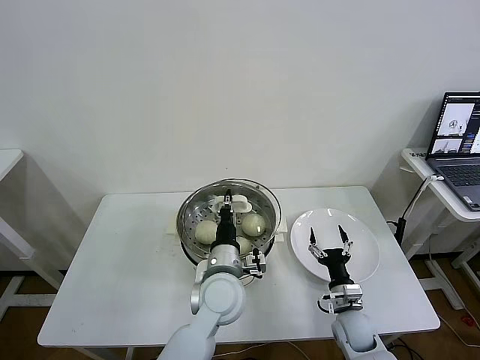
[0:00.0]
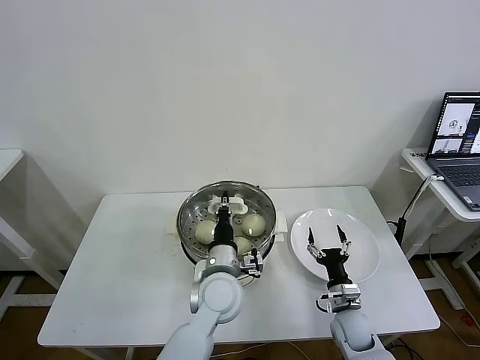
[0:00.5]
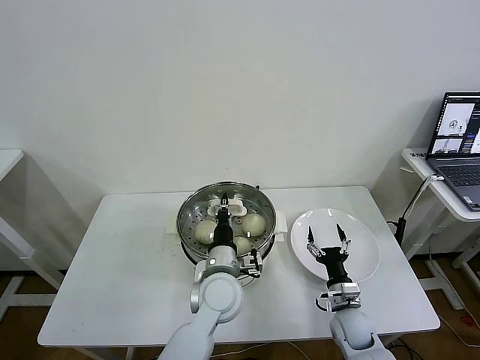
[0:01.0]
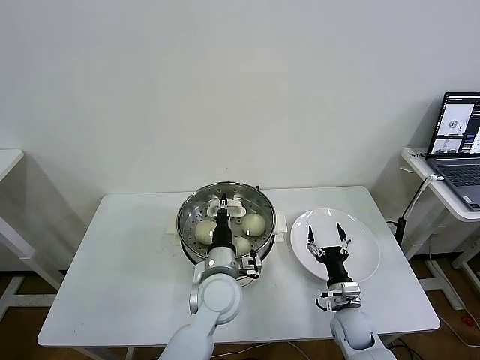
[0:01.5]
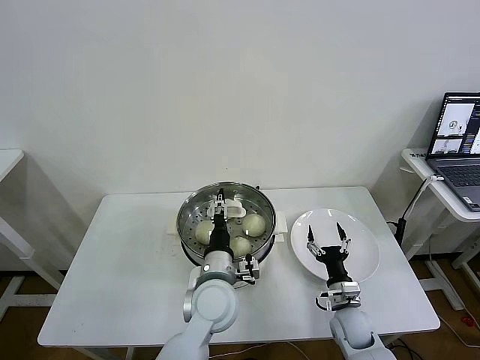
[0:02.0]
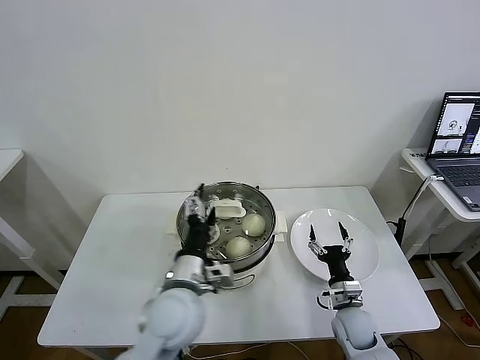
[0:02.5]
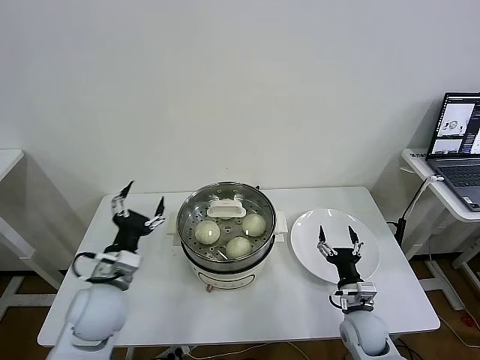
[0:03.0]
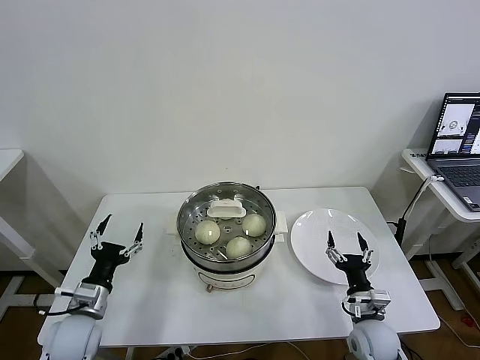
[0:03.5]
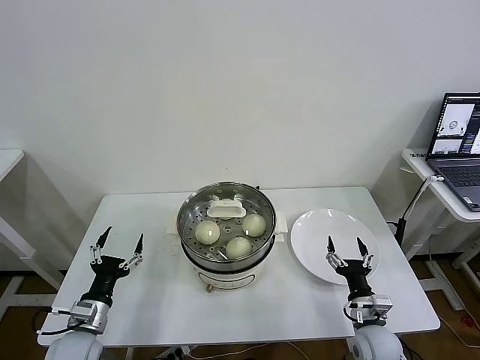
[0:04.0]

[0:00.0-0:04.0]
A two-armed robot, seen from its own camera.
Task of the whole recording: take steamed baozi put them in steamer then cover it.
0:00.0 to 0:02.0: The left gripper opens.
0:02.0 to 0:04.0: The right gripper is displaced backward by some 5 cm, while the left gripper is displaced to the left by some 30 cm, and opens its fingers.

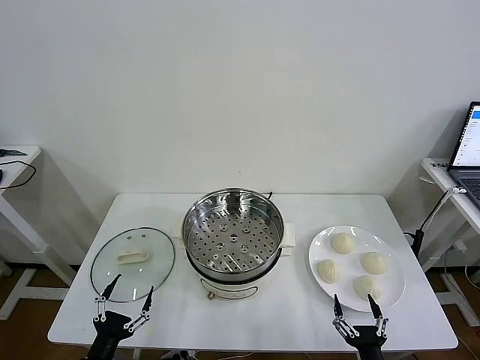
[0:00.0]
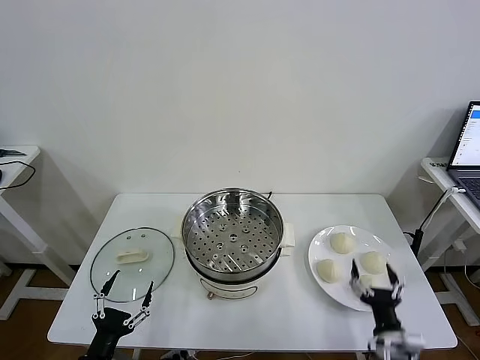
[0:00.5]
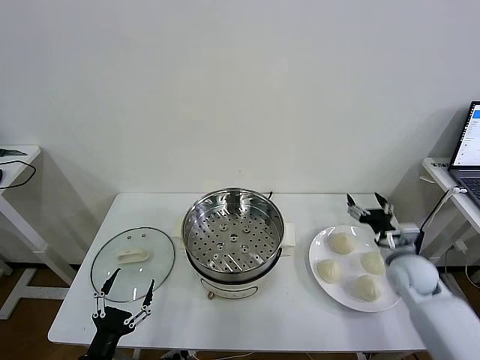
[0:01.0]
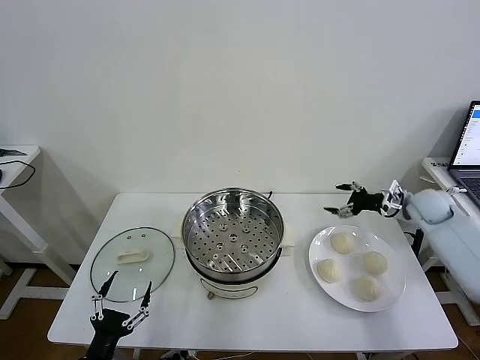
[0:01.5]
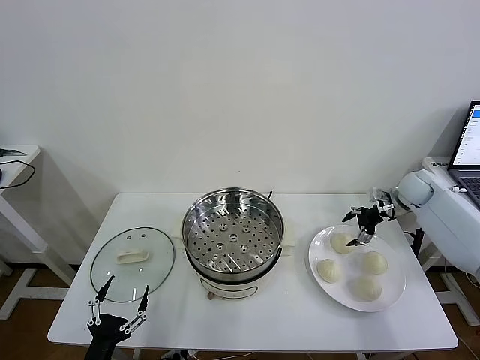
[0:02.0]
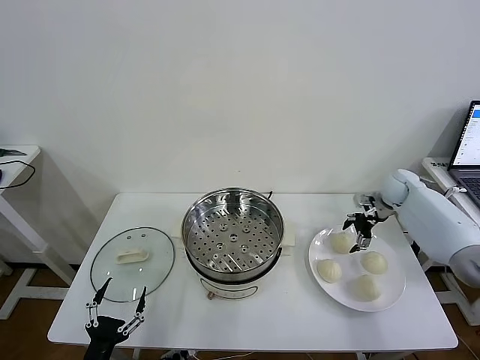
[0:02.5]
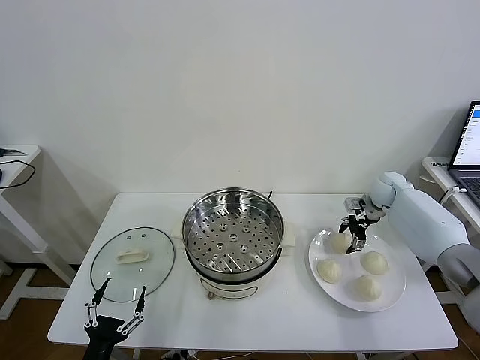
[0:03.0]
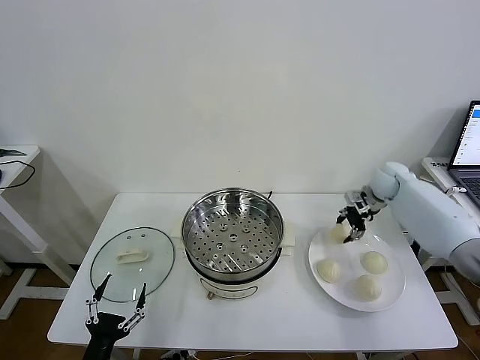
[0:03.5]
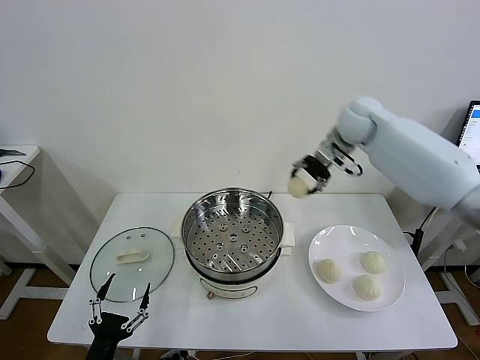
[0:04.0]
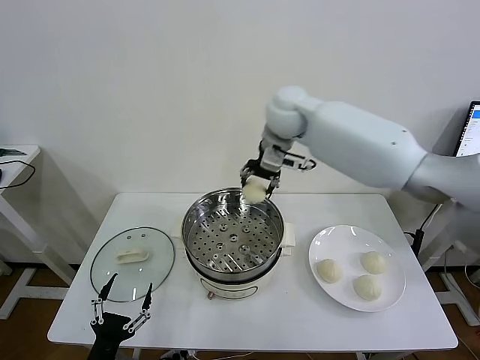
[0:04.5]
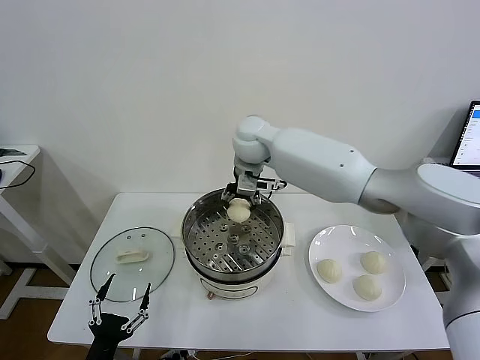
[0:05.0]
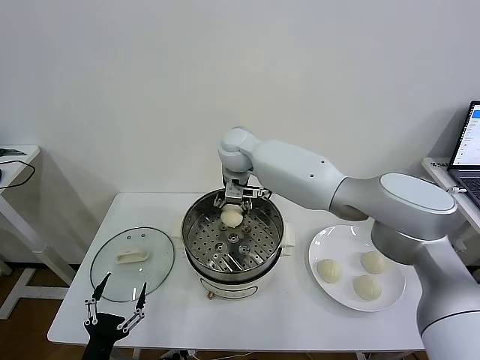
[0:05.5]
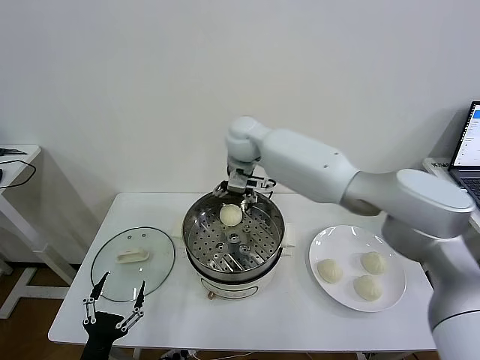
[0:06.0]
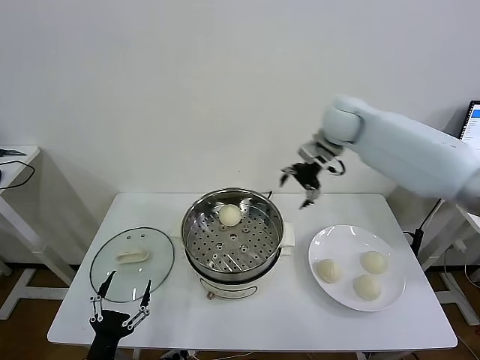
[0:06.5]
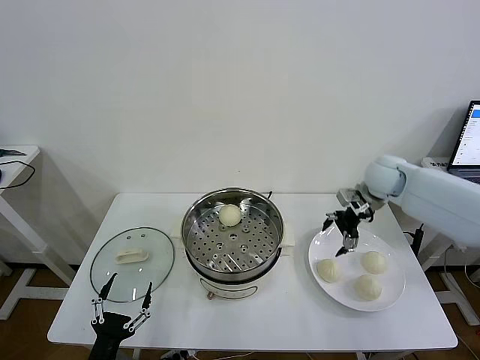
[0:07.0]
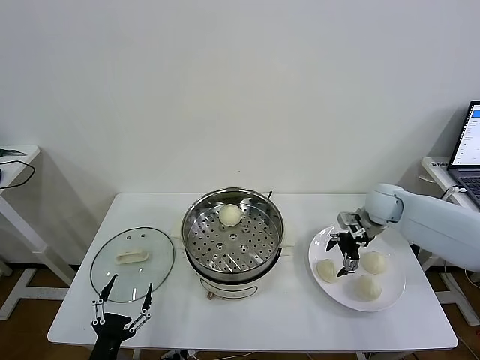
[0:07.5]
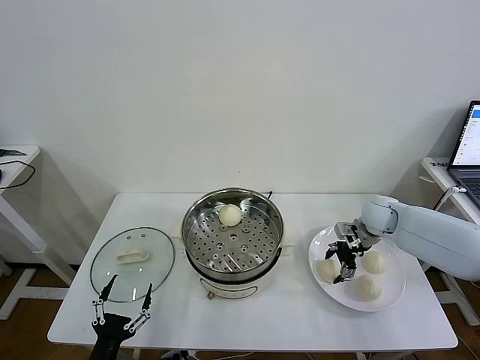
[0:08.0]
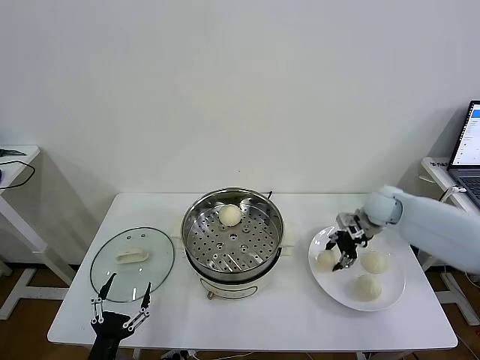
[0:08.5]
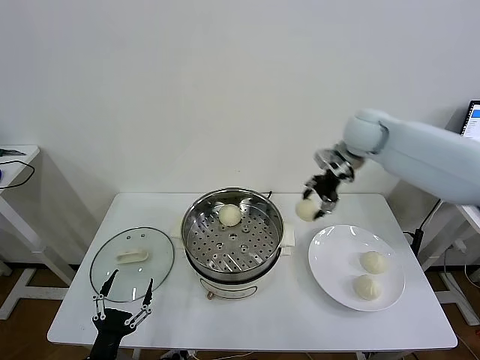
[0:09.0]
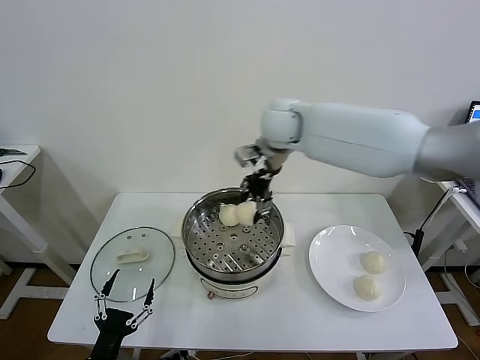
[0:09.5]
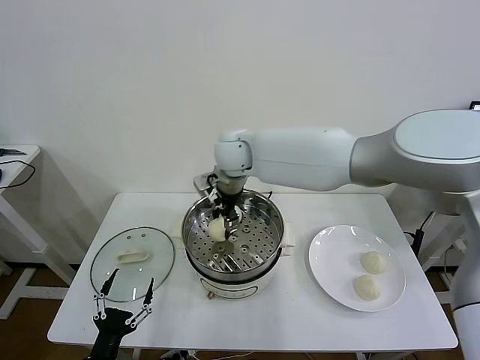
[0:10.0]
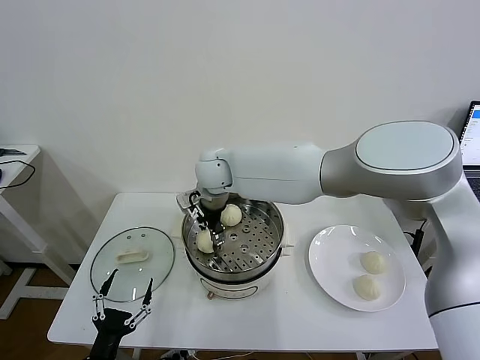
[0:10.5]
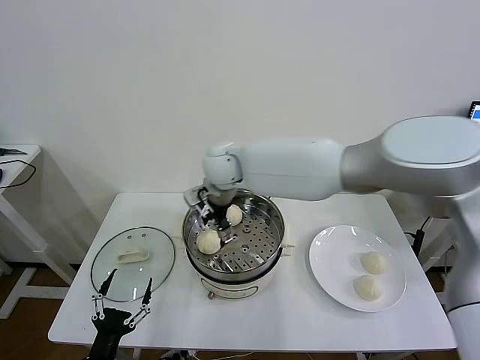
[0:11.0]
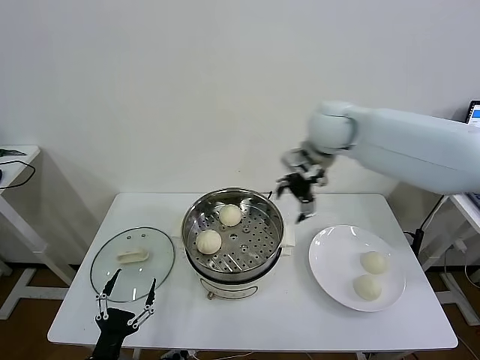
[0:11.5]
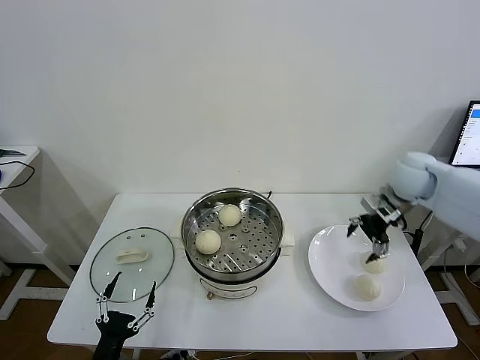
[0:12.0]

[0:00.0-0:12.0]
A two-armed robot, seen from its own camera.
Task of the whole recording: take steamed baozi put them in steamer then cover it.
Step, 0:00.0 to 0:03.0: Grasp the baozi in the plate with right gripper.
Step, 0:03.5 to 0:05.5: Place the baozi on the steamer with right gripper.
Step, 0:06.0 to 0:08.0: Grasp the baozi in the plate with right gripper.
Step, 0:08.5 to 0:10.5: Place the baozi on the steamer with right gripper.
0:02.0 to 0:04.0: The right gripper moves to the left and upward, some 30 cm, and closes.
0:04.0 to 0:06.0: The right gripper travels to the left by about 15 cm, and opens.
0:06.0 to 0:08.0: The right gripper goes approximately 35 cm to the right and downward, and closes.
0:08.0 to 0:10.0: The right gripper goes about 40 cm to the left and upward.
0:10.0 to 0:12.0: The right gripper shifts some 40 cm to the right, and opens its fingers.

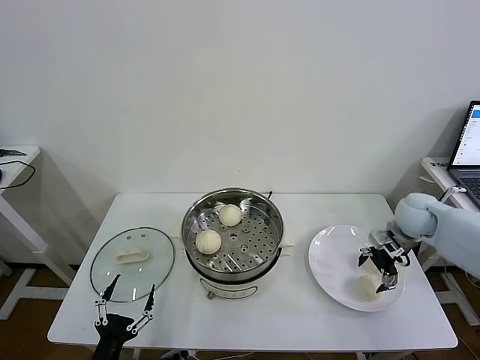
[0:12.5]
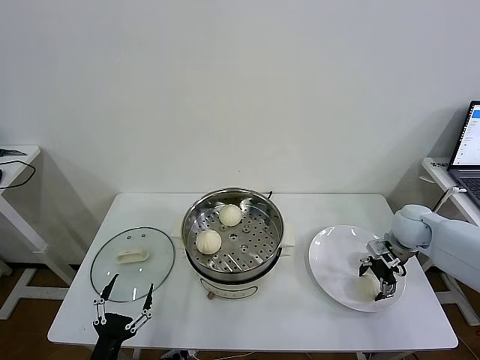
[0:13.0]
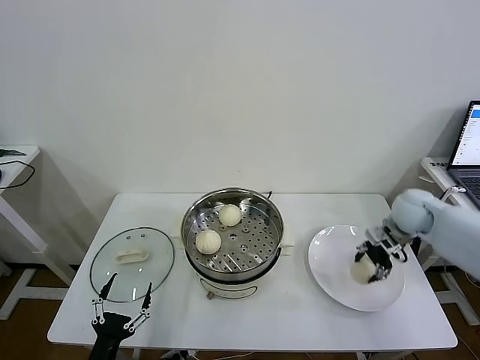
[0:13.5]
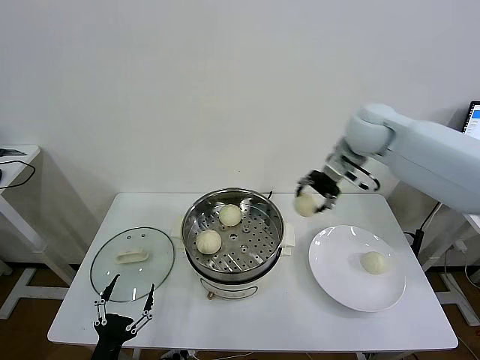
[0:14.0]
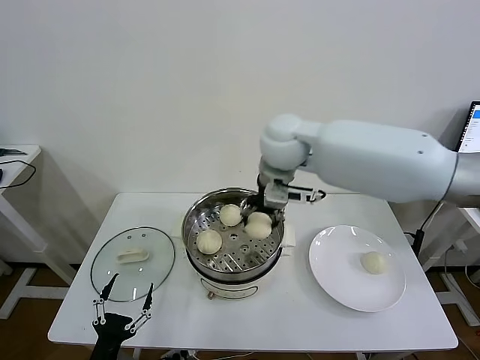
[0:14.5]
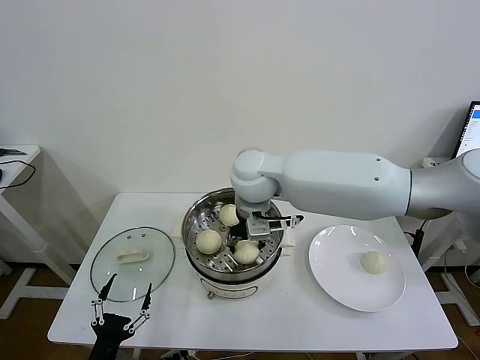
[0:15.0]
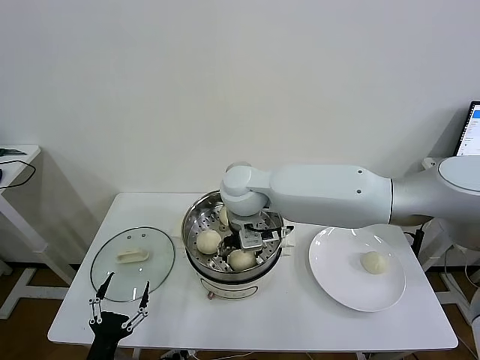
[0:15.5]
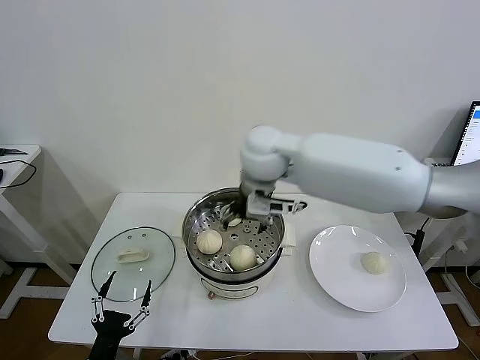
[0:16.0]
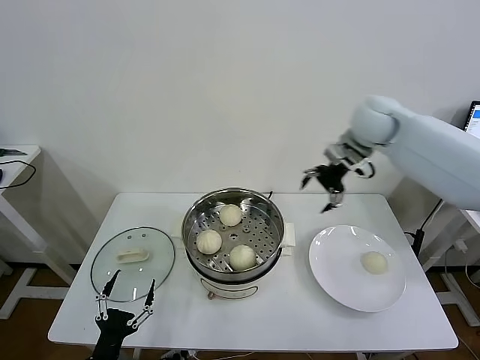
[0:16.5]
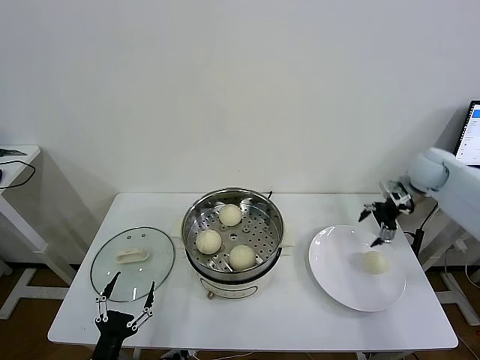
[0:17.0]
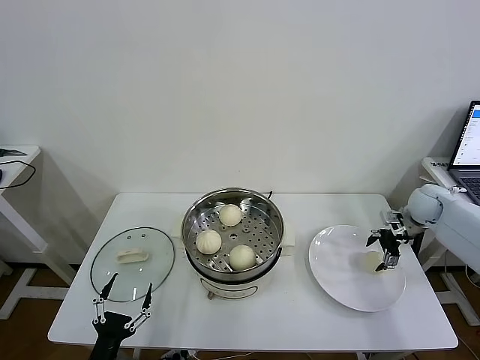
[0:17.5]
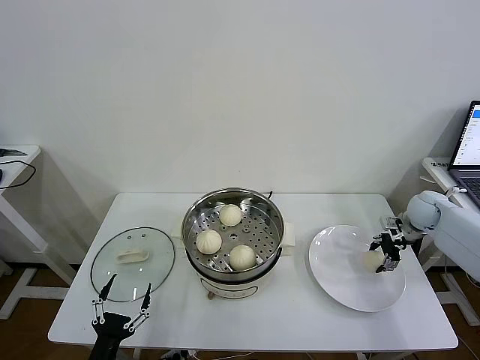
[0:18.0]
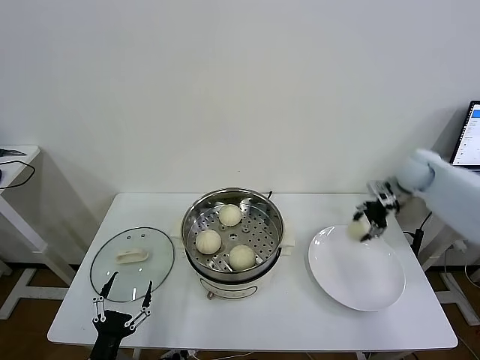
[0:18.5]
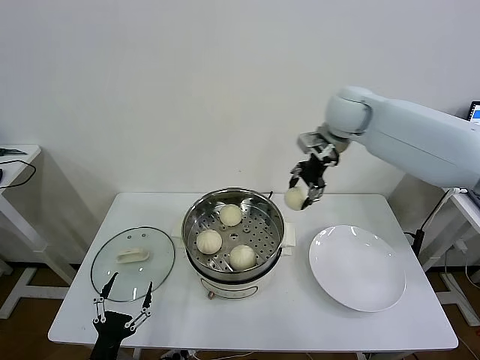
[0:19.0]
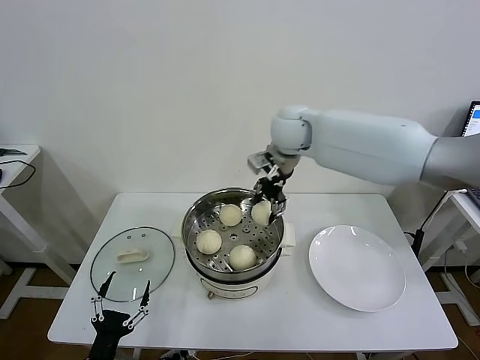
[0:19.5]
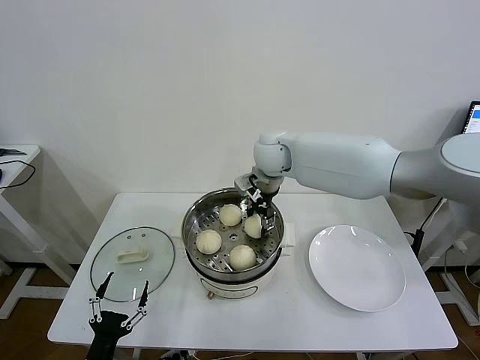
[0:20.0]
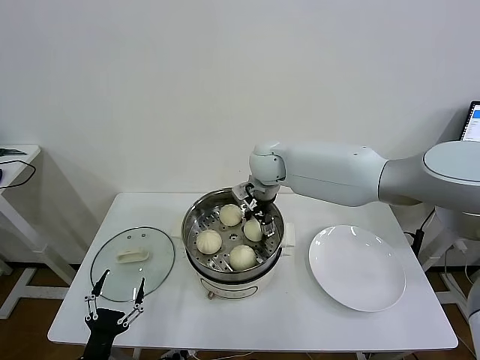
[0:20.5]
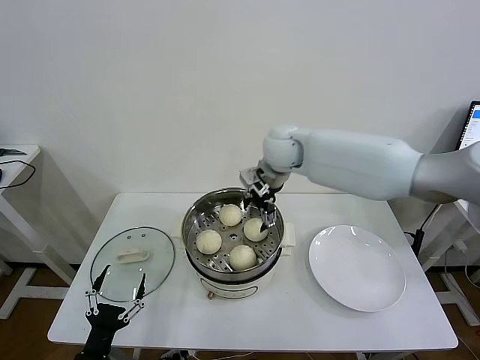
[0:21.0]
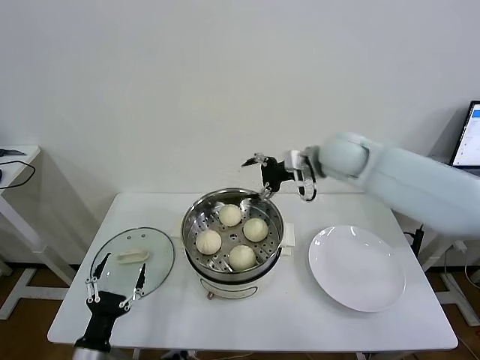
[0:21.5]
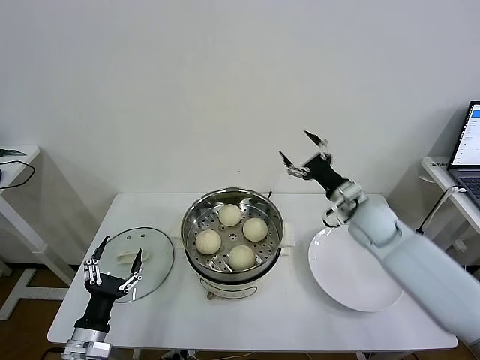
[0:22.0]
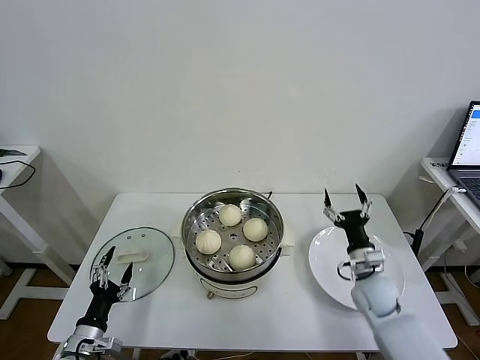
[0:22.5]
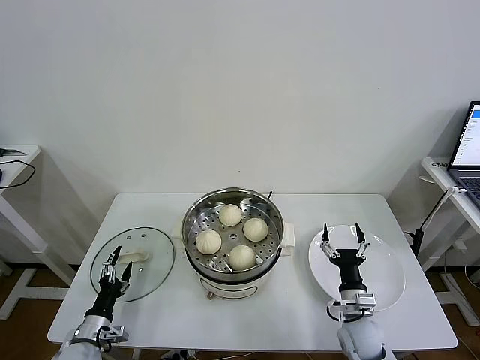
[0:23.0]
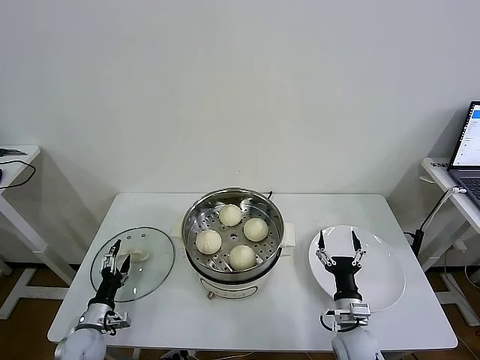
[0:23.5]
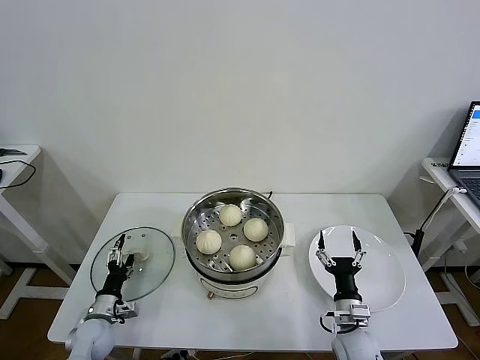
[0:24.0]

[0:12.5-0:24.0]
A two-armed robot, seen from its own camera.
Task of the whole recording: take steamed baozi put them in steamer then cover it.
Step, 0:13.5 to 0:15.5: Place the baozi on the steamer with right gripper.
Step, 0:16.0 to 0:18.0: Grasp the baozi in the plate with right gripper.
Step, 0:18.5 to 0:20.5: Place the baozi on the steamer with right gripper.
0:12.5 to 0:14.5: The right gripper moves to the left and upward, some 40 cm, and closes its fingers.
0:14.5 to 0:16.5: The right gripper heads to the right, covering about 25 cm, and opens its fingers.
0:16.5 to 0:18.5: The right gripper heads to the right and downward, covering some 15 cm, and closes up.
0:18.5 to 0:20.0: The right gripper is displaced to the left by roughly 35 cm.
0:20.0 to 0:22.0: The left gripper moves forward, some 5 cm. The right gripper moves to the right, downward and backward, approximately 30 cm, and opens its fingers.
0:22.0 to 0:24.0: The left gripper moves forward and downward, about 15 cm. The right gripper shifts some 30 cm downward and backward.
